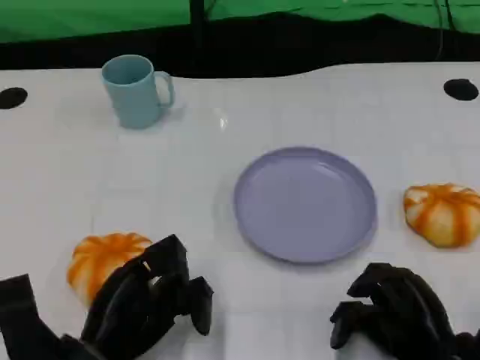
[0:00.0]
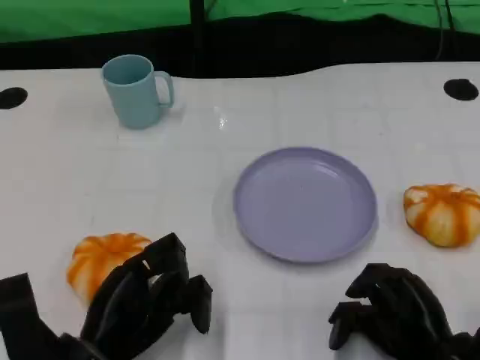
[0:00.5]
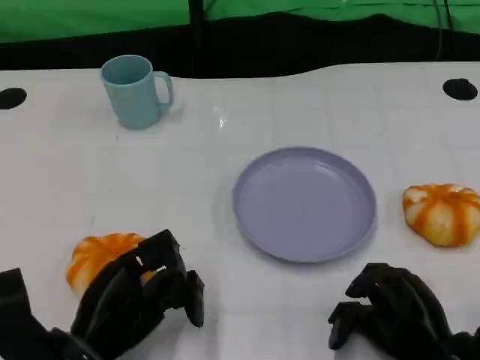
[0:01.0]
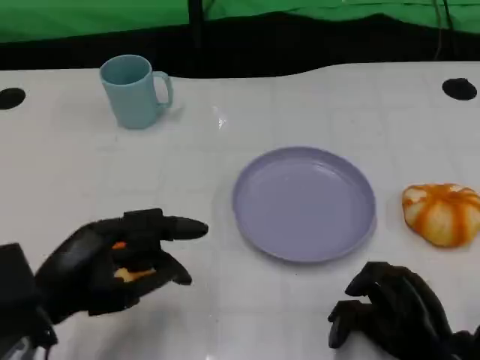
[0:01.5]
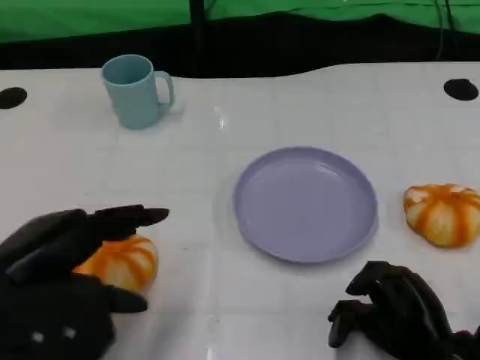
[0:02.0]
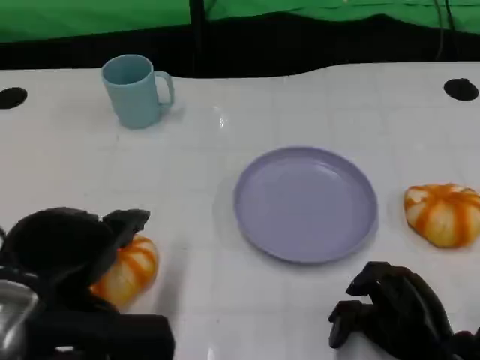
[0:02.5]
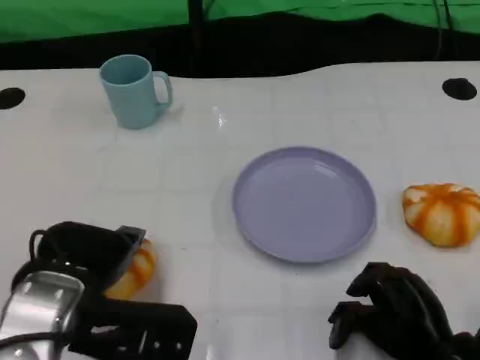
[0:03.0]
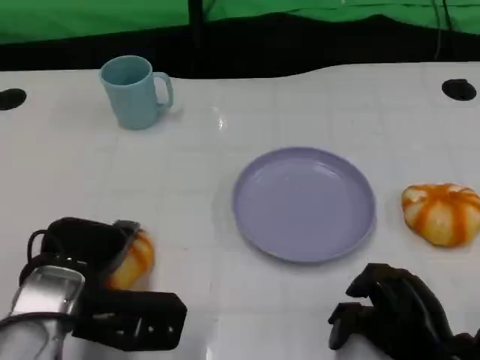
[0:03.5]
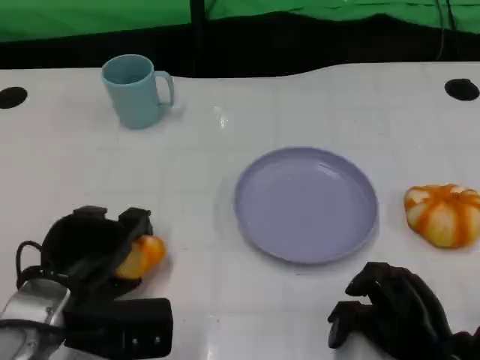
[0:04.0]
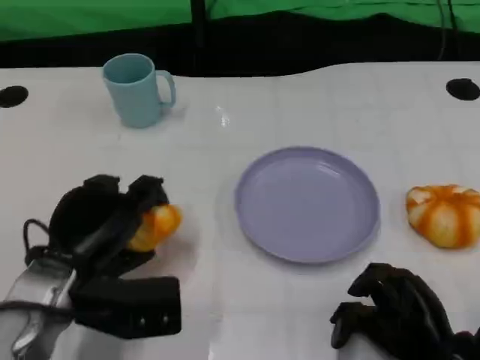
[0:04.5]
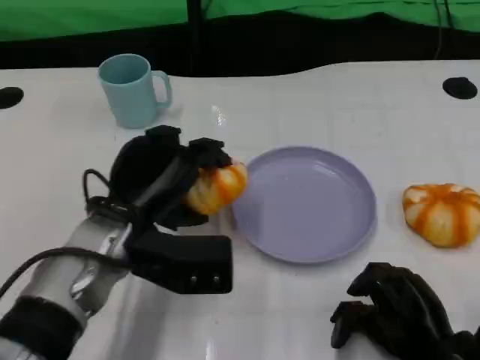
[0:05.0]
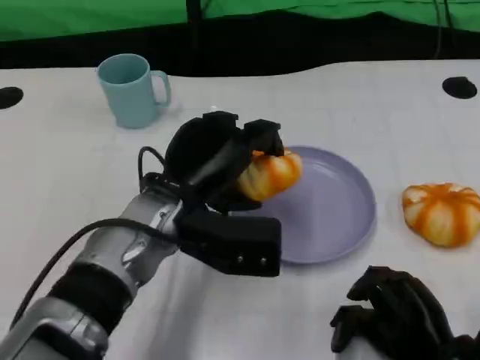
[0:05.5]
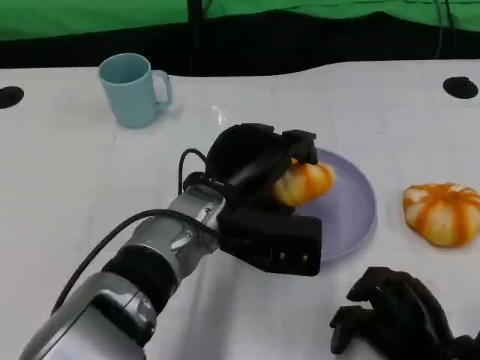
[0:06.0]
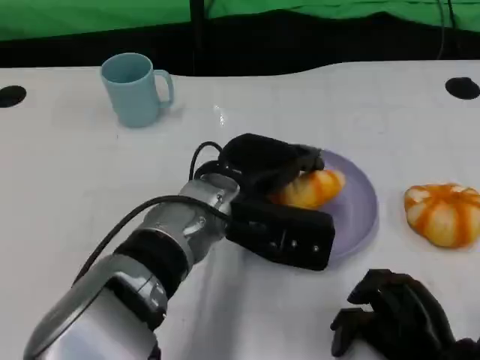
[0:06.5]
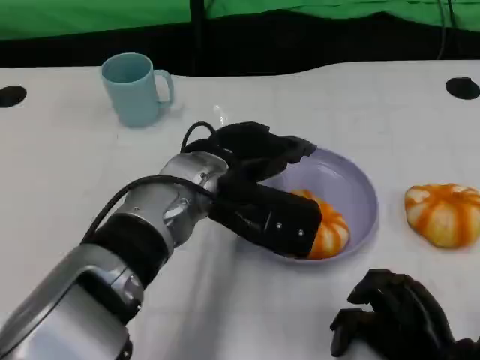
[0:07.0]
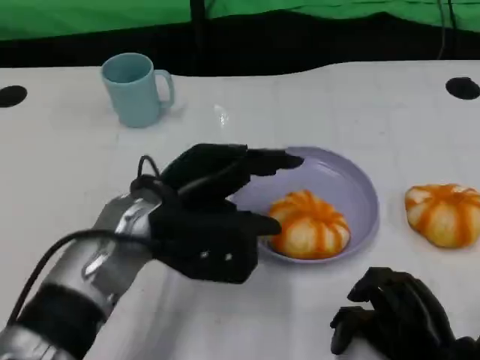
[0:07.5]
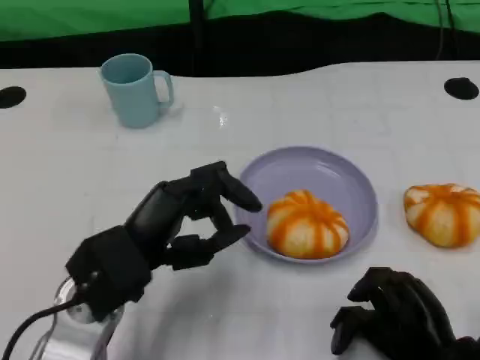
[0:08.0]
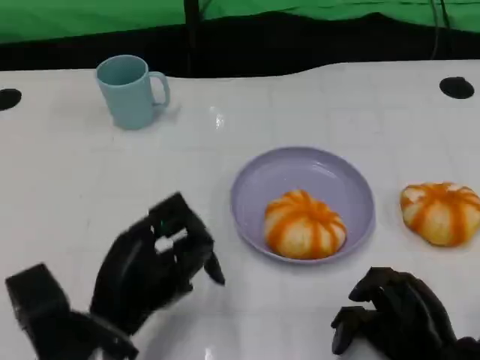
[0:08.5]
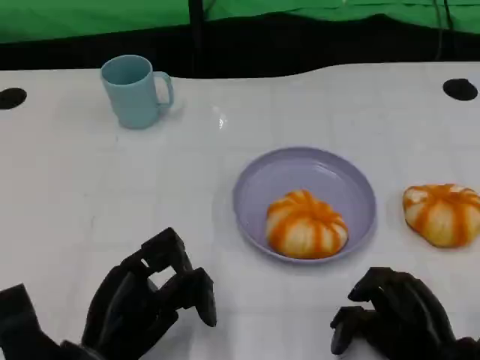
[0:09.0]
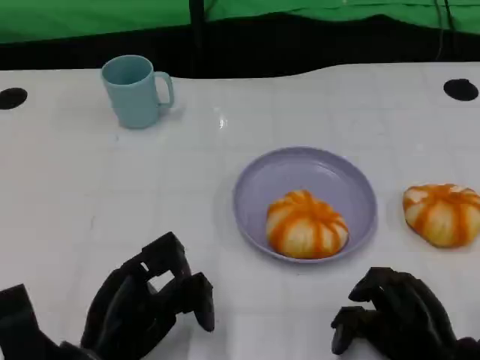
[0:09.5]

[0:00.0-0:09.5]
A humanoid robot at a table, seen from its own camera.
Task of the whole recording: Grasp the bread from the table and place it into the plate.
0:00.0 to 0:02.0: The left hand goes some 15 cm upward.
0:02.0 to 0:04.0: The left hand moves downward and forward, approximately 10 cm.
0:04.0 to 0:05.5: The left hand shifts roughly 15 cm to the right, forward and upward.
0:07.5 to 0:09.5: The left hand goes approximately 15 cm backward, downward and to the left.

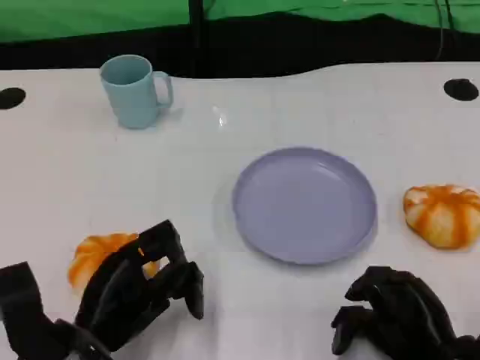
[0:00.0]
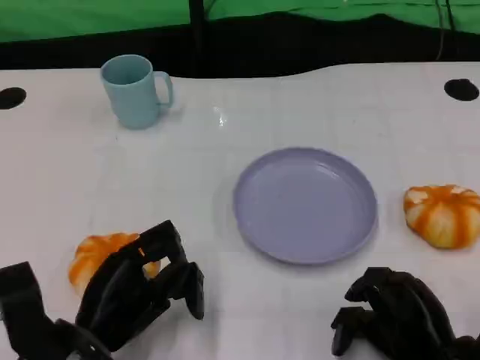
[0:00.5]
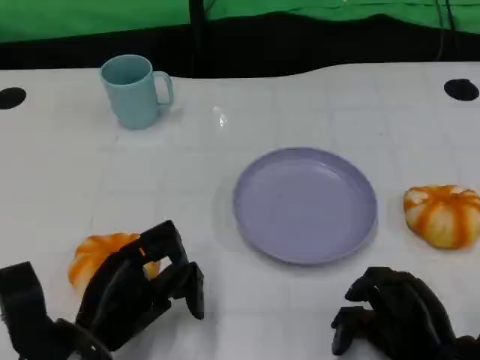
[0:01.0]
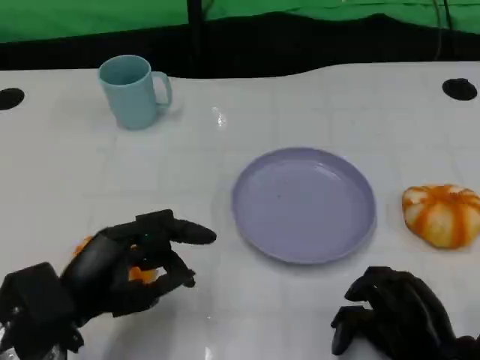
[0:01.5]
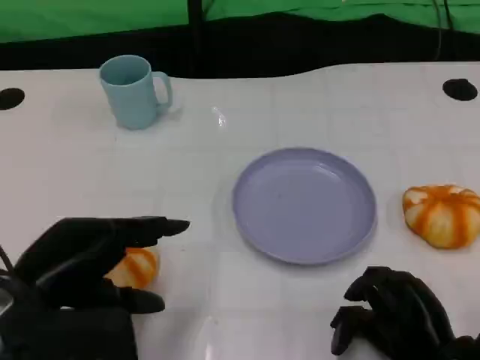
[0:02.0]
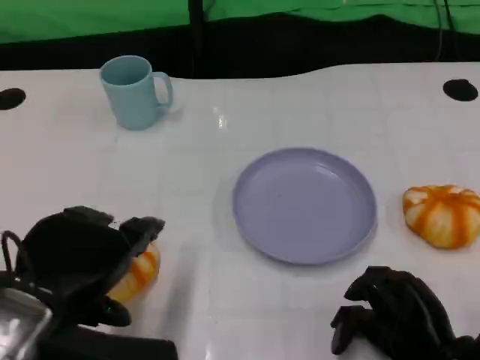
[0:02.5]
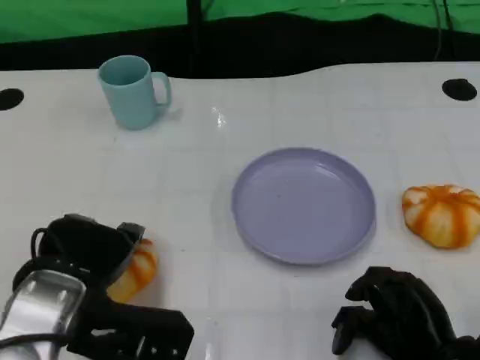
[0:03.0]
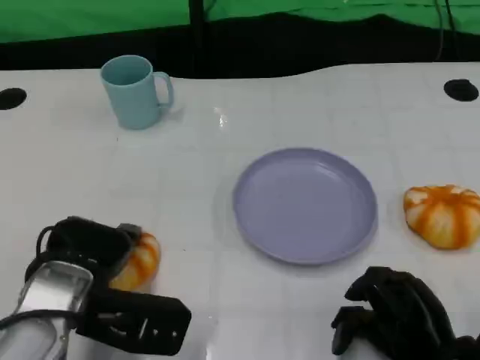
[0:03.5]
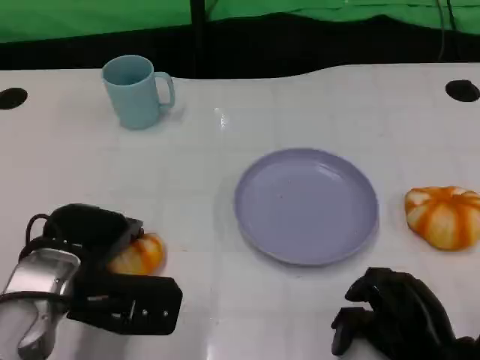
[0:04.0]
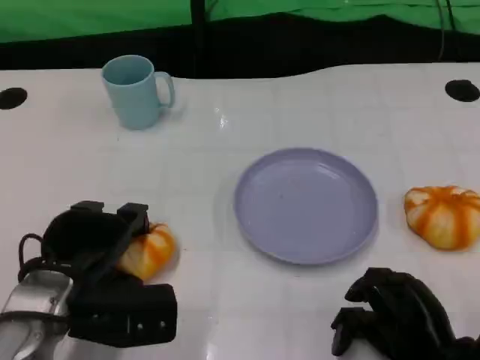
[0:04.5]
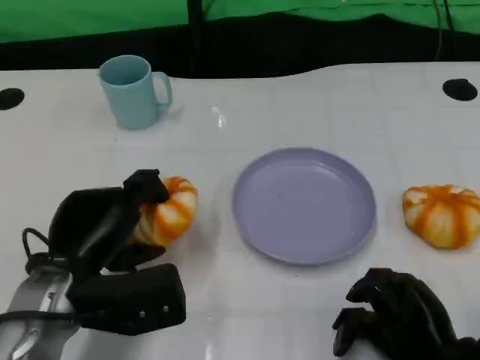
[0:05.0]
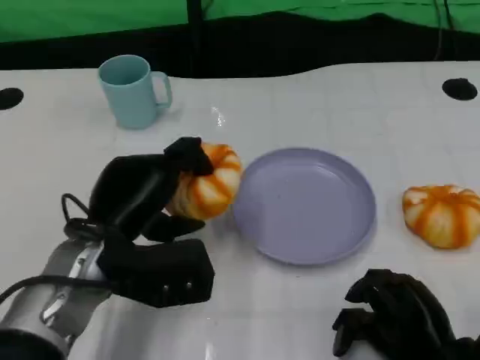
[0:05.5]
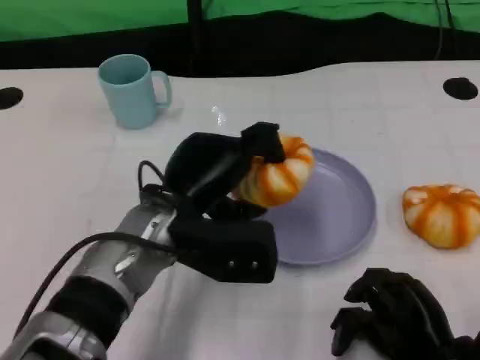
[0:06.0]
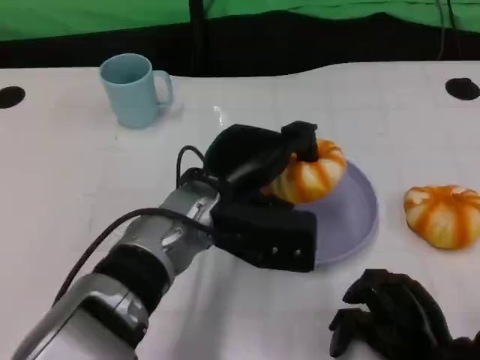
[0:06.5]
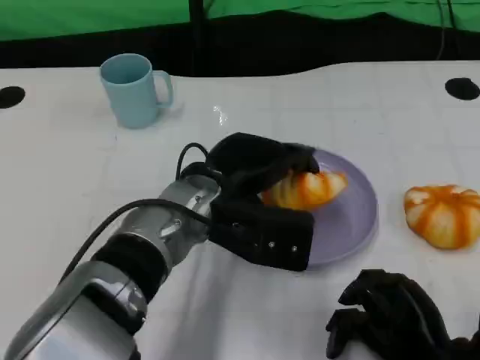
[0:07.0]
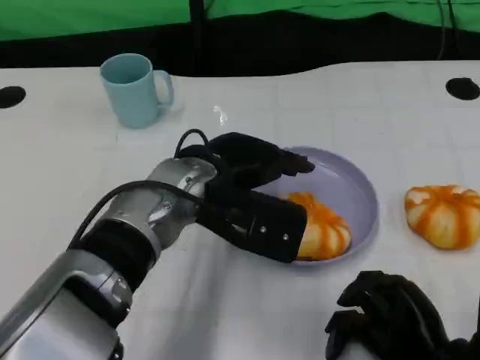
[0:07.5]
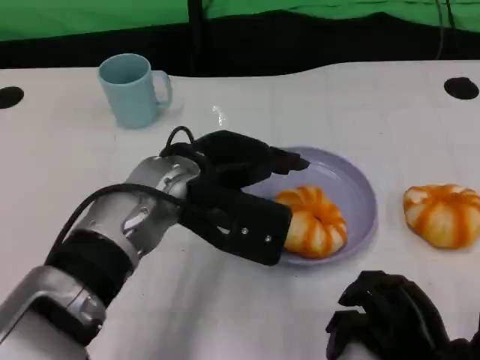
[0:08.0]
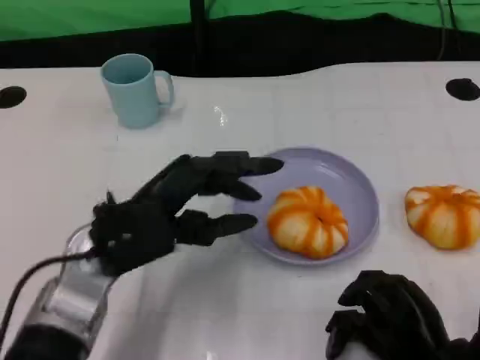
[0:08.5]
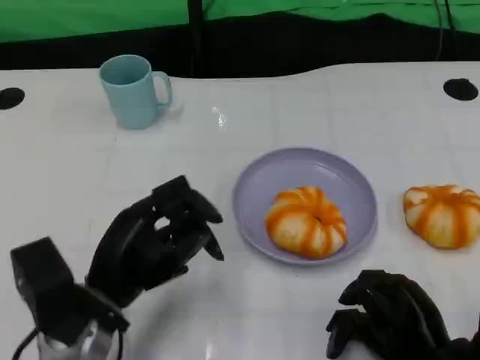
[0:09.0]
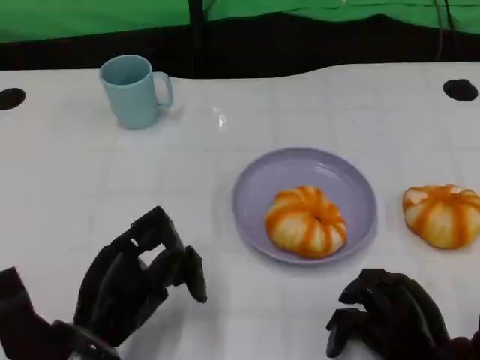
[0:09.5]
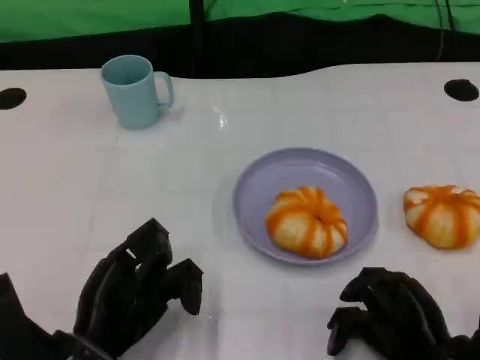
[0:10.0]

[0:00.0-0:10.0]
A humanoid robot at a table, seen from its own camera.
Task of the whole recording: Grasp the bread from the table and place it into the plate.
0:00.0 to 0:02.0: The left hand goes approximately 10 cm upward.
0:02.0 to 0:04.0: The left hand goes about 10 cm forward and downward.
0:04.0 to 0:06.0: The left hand shifts roughly 10 cm to the right.
0:08.0 to 0:10.0: The left hand moves downward, backward and to the left, roughly 20 cm.

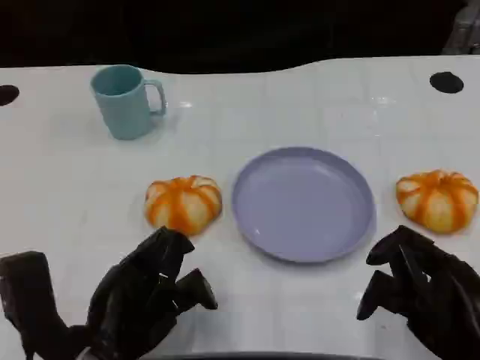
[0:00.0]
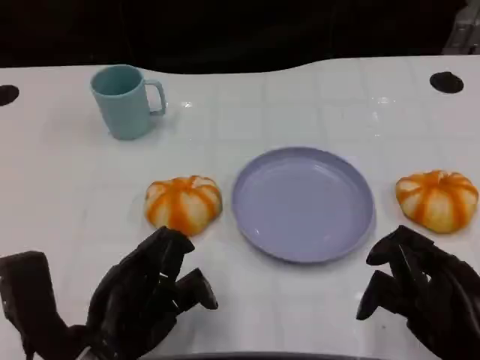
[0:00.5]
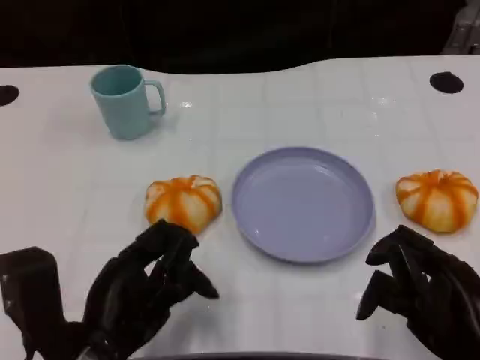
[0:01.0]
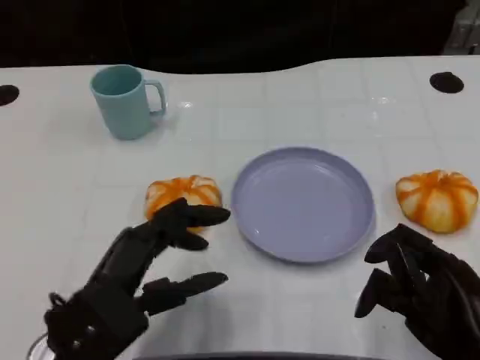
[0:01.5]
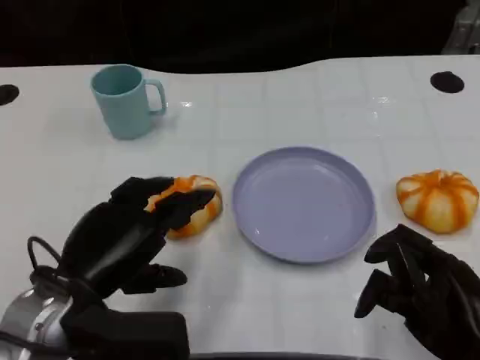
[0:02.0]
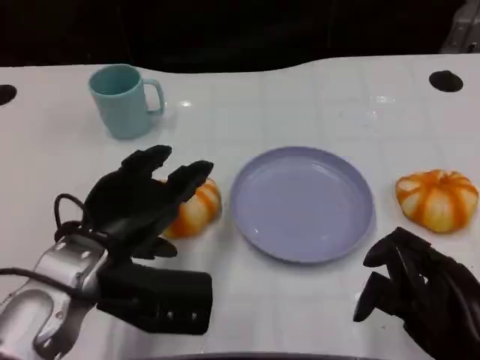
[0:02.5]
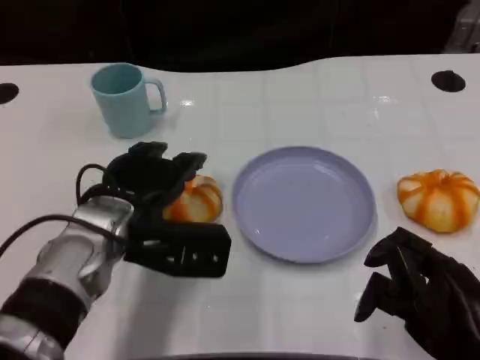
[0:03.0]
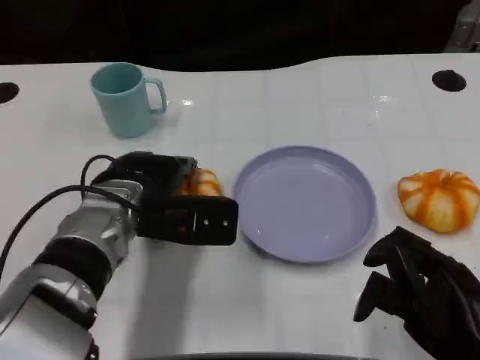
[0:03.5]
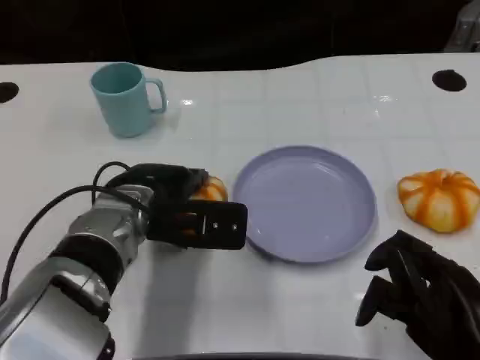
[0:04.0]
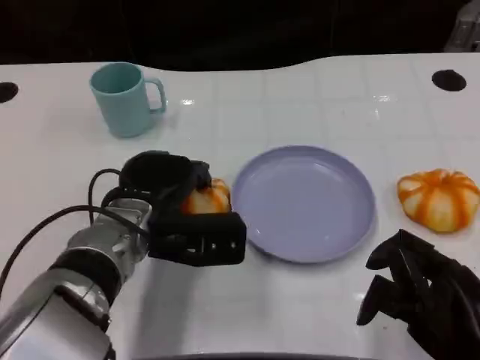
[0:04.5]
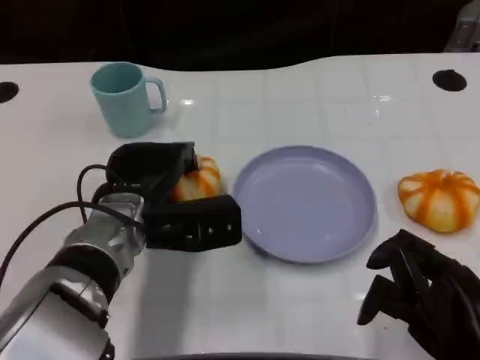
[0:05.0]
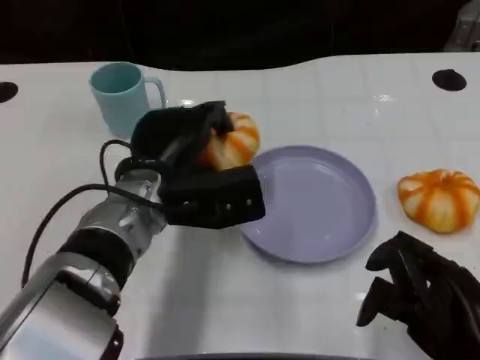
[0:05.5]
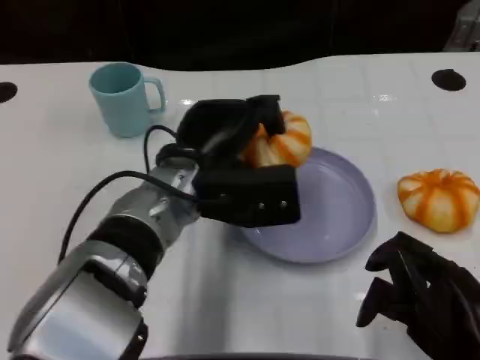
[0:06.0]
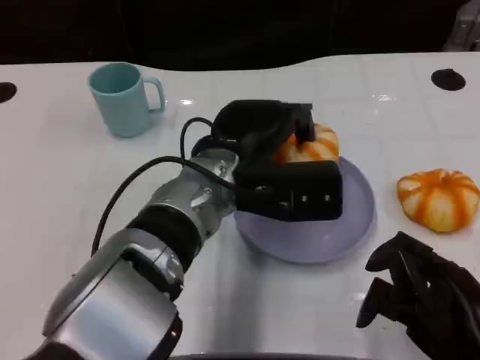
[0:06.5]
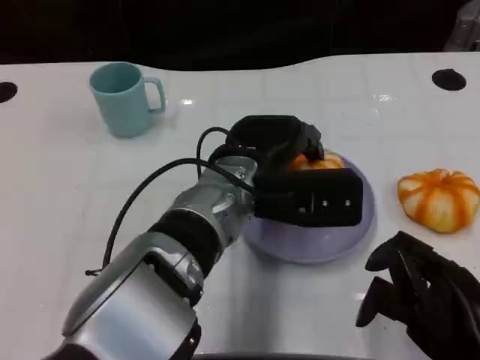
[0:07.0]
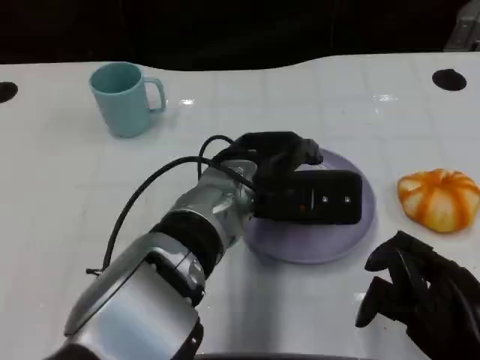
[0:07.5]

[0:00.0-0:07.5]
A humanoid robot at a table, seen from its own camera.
Task of the whole recording: Grasp the bread from the table and place it into the plate.
0:00.0 to 0:02.0: The left hand shifts by about 5 cm.
0:02.0 to 0:04.0: The left hand is displaced forward and to the right by roughly 10 cm.
0:05.5 to 0:07.5: The left hand travels to the right by some 10 cm.
